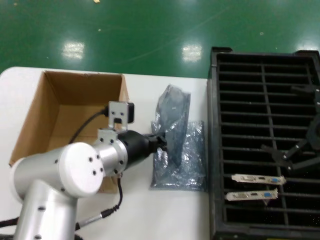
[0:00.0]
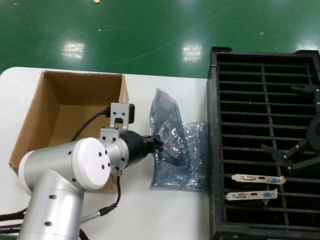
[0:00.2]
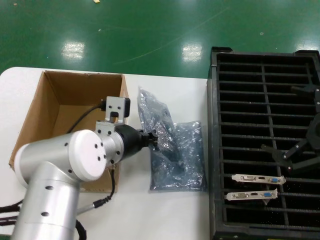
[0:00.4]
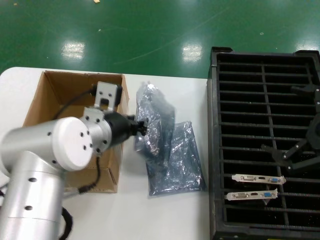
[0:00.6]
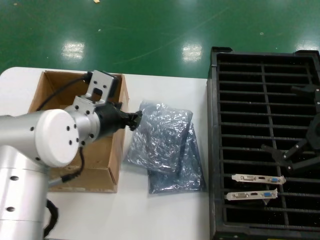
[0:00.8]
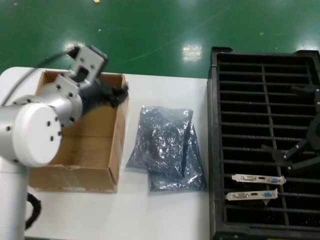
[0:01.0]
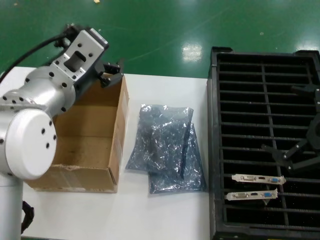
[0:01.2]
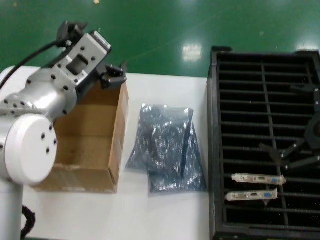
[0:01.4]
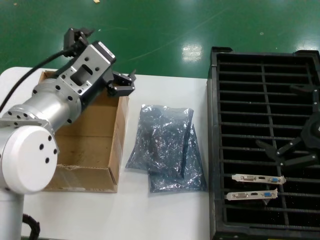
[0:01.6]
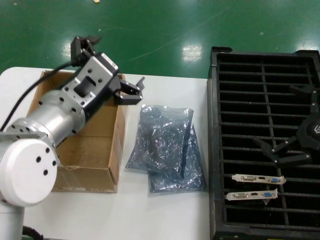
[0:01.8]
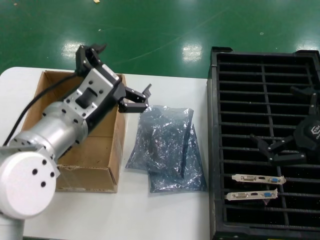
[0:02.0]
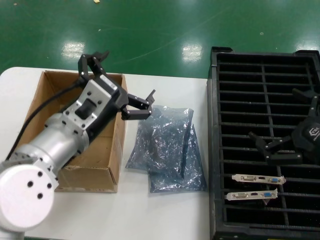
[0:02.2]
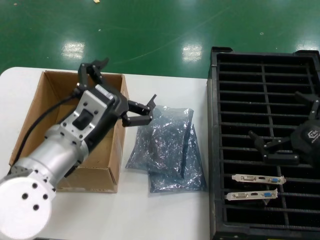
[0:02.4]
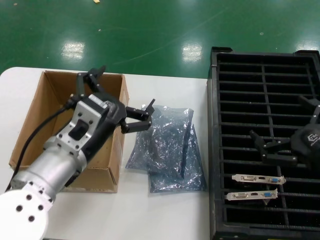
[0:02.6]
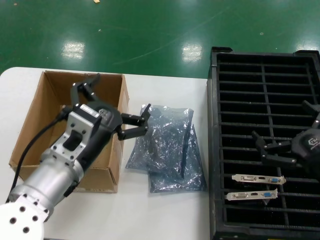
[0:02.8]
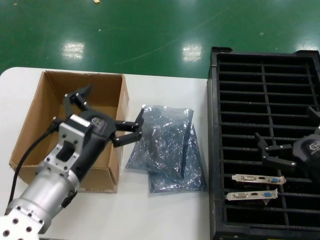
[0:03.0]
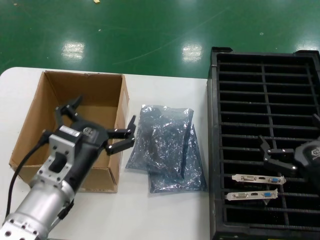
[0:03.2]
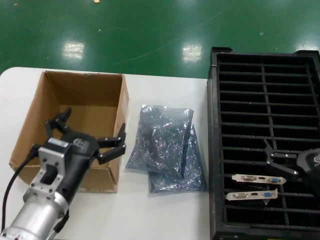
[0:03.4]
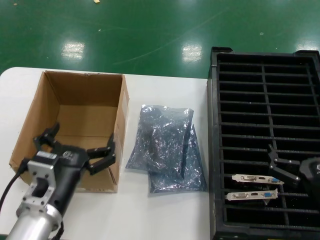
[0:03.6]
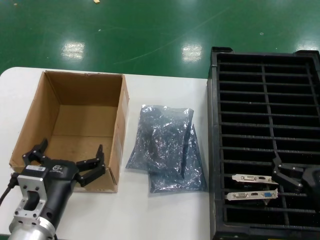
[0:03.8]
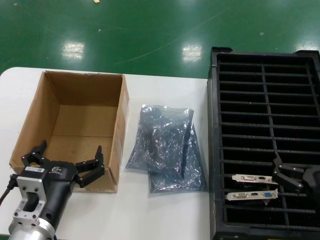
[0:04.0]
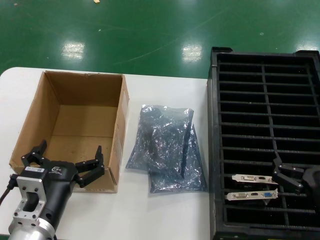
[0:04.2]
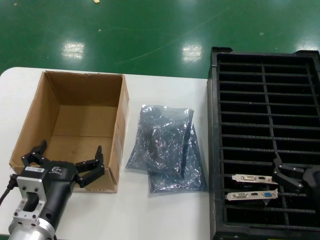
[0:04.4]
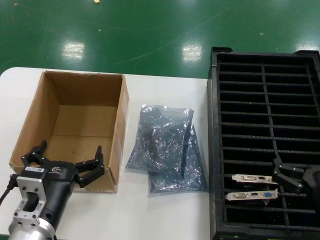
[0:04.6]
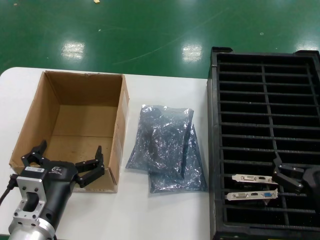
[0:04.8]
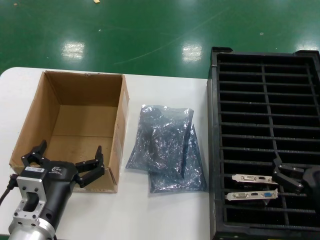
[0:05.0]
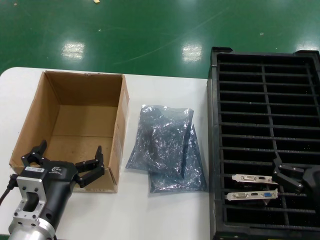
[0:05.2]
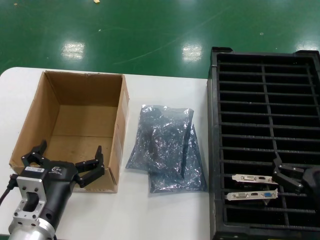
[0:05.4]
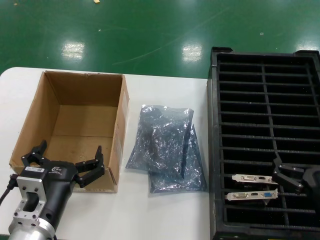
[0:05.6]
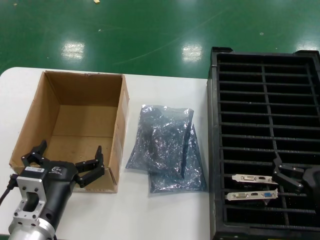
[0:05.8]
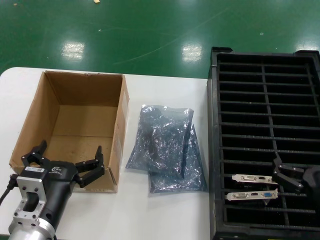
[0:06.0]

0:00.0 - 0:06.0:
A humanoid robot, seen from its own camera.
Task of the whole recording: take out graphics card from box remove packaging put into black container.
0:00.0 - 0:01.6: The left hand moves upward, roughly 10 cm.
0:01.6 - 0:03.0: The right hand shifts roughly 10 cm downward and to the left, while the left hand shifts some 15 cm downward.
0:03.0 - 0:04.4: Both hands travel together downward, approximately 5 cm.
0:04.4 - 0:06.0: Both hands stay about where they are.
